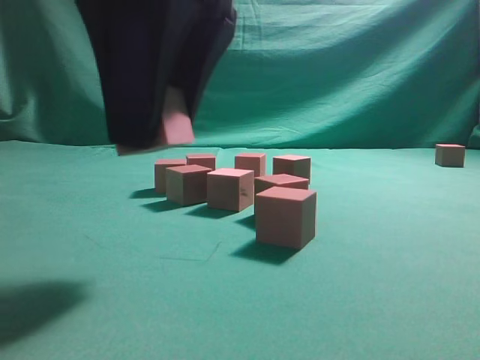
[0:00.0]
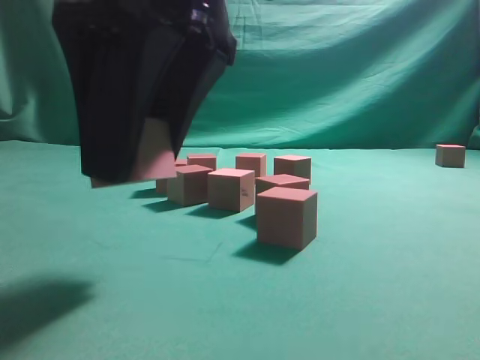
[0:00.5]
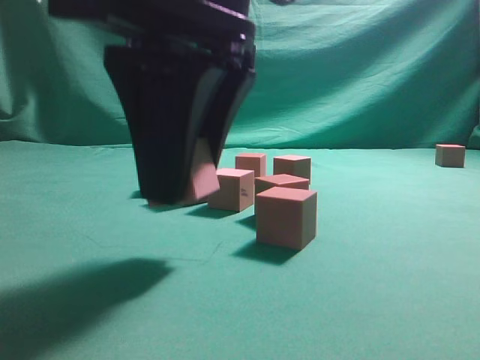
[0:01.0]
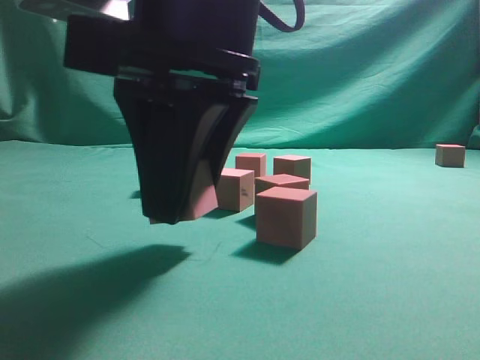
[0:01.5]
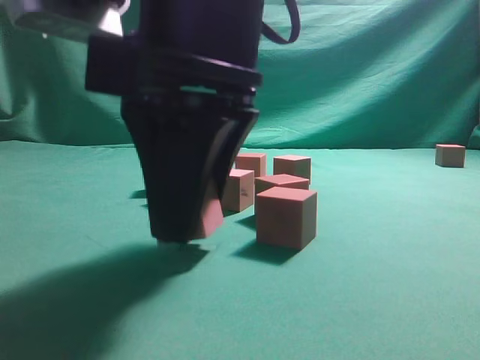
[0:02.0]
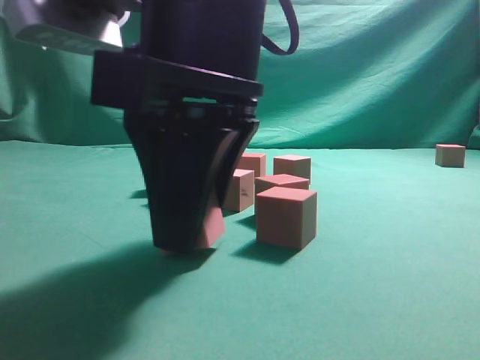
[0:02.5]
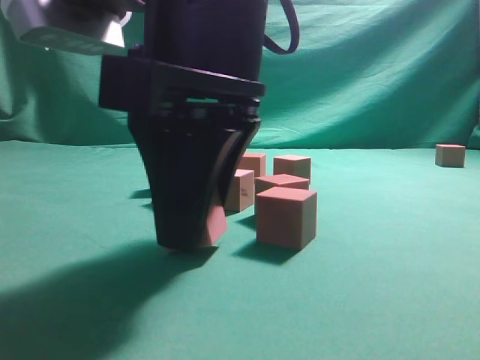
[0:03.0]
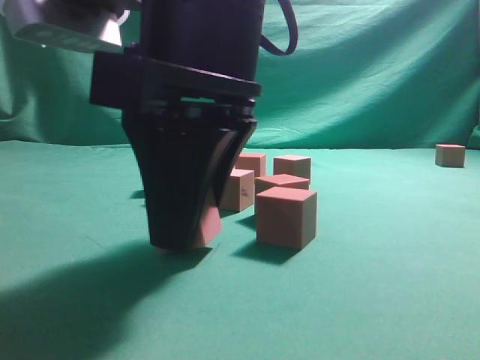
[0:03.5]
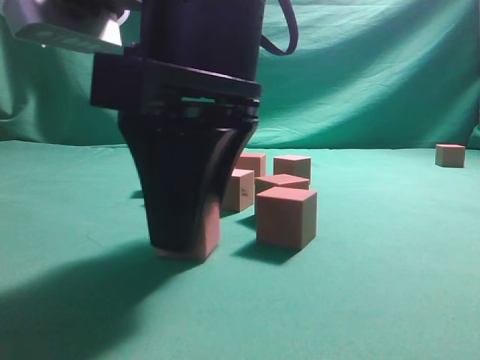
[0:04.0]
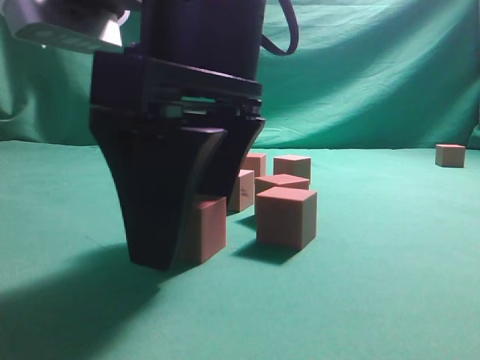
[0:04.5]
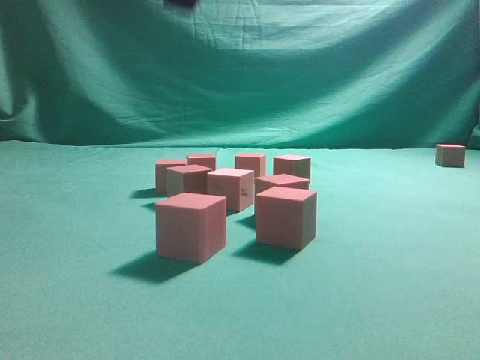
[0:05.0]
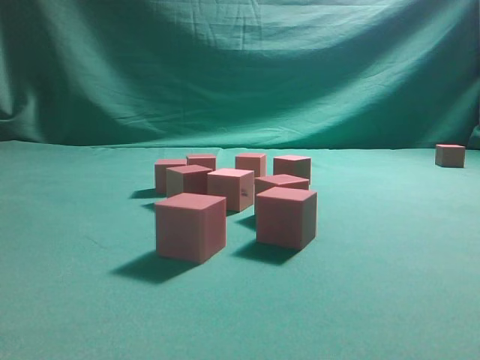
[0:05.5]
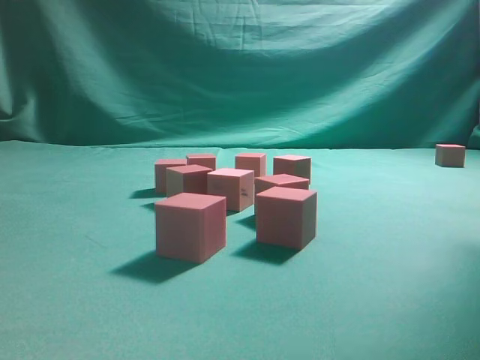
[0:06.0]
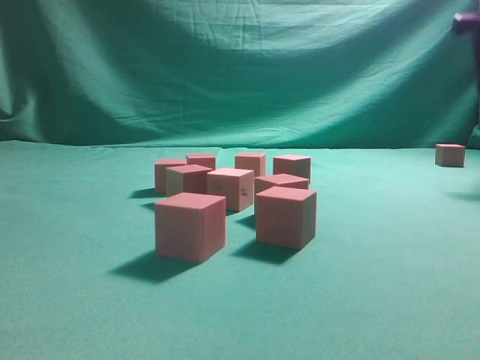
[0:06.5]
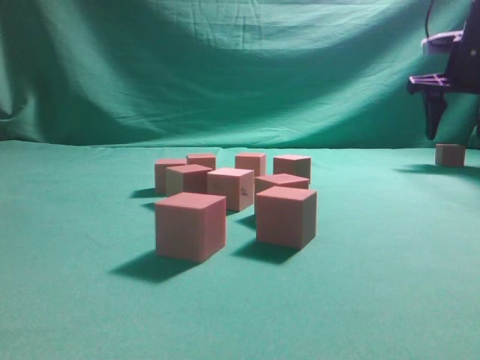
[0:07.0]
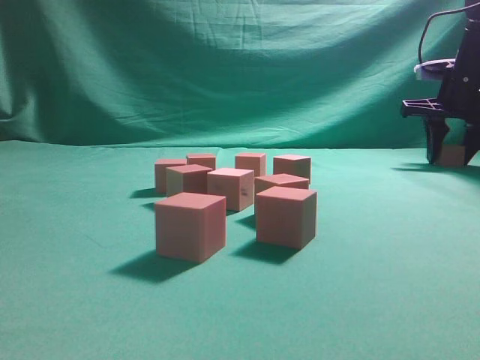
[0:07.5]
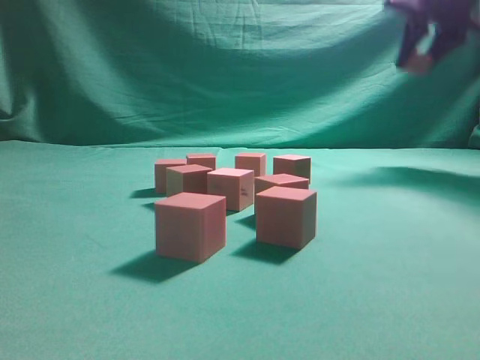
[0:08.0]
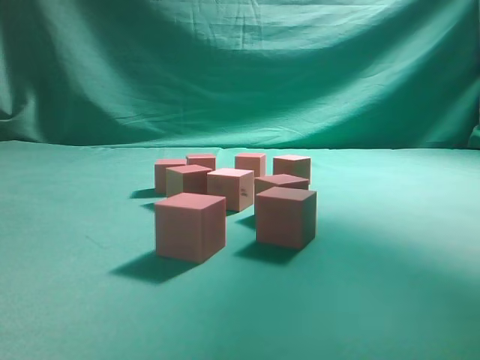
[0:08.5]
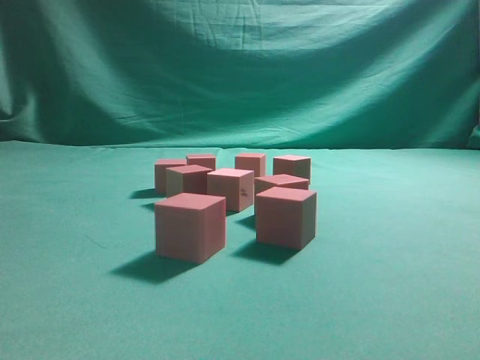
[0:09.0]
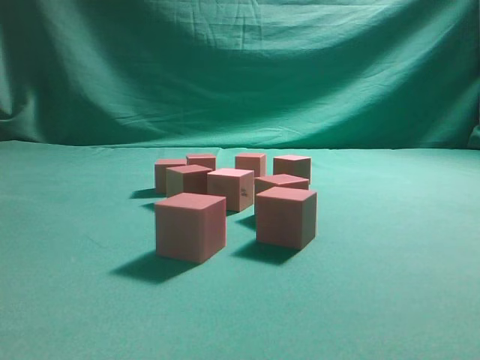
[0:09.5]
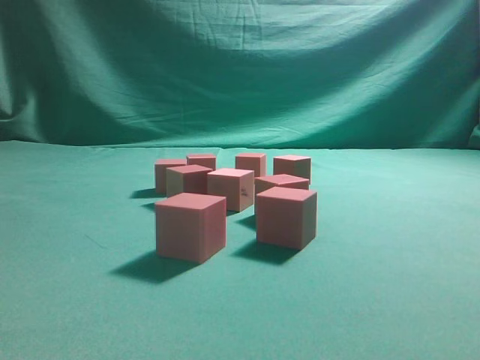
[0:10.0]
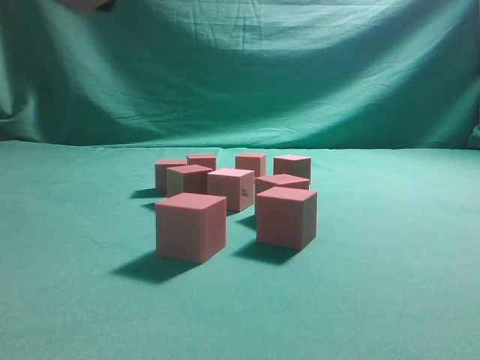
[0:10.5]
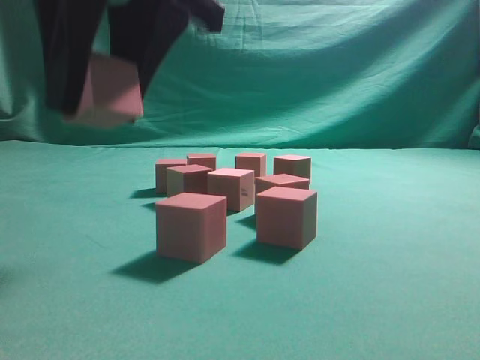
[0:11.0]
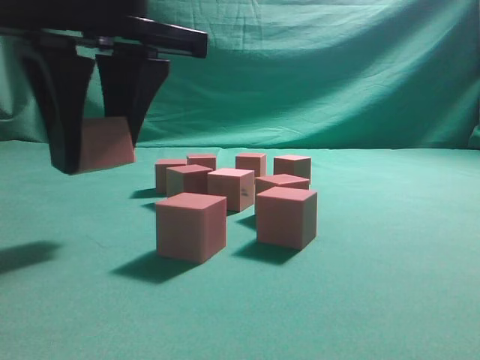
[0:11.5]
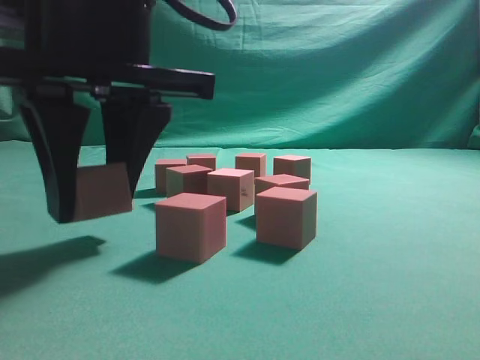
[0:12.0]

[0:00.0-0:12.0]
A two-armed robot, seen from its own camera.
Task of the whole recording: pick up the multiple cubes in two columns one by one and place them in another position on the table.
Step, 0:00.0 to 0:04.5: Place the block at the correct position to assemble the letter S.
Step, 0:05.0 to 0:08.0: Pick up the block on the table.
0:00.0 to 0:02.0: The right gripper travels downward by some 5 cm.
0:02.0 to 0:04.0: Neither gripper changes place.
0:04.0 to 0:06.0: The right gripper is displaced to the right, upward and forward by some 35 cm.
0:06.0 to 0:08.0: The right gripper goes about 15 cm forward, goes downward and returns, about 20 cm each way, and closes up.
0:08.0 to 0:10.0: The right gripper shifts about 40 cm backward and to the left.
0:10.0 to 0:12.0: The right gripper shifts roughly 20 cm downward and to the left.

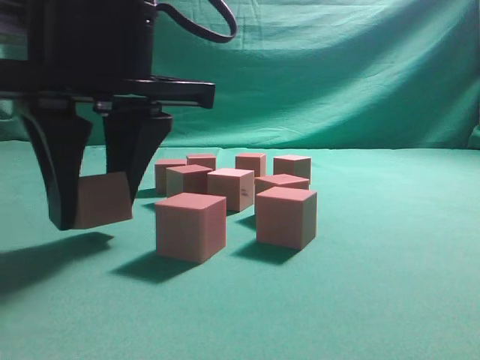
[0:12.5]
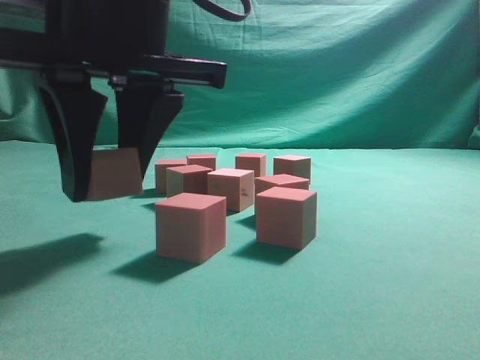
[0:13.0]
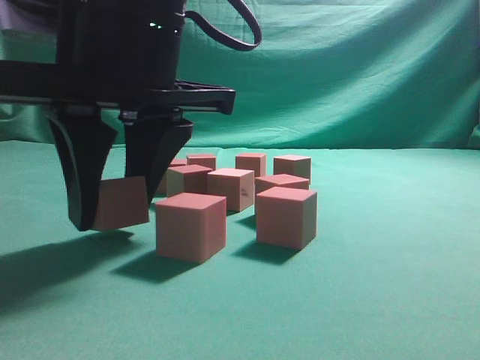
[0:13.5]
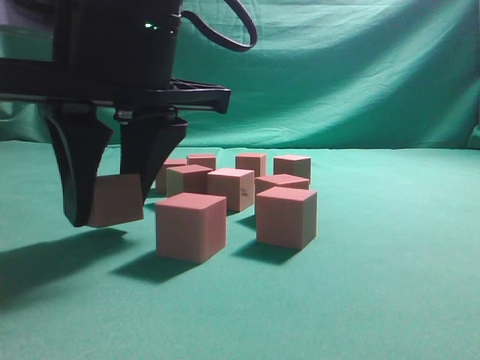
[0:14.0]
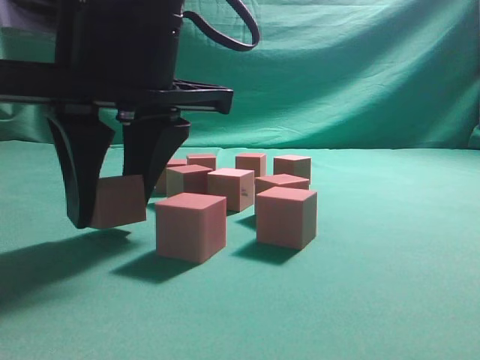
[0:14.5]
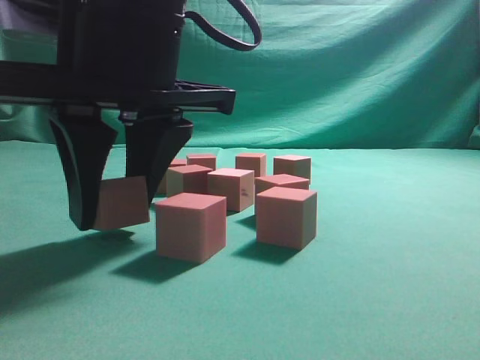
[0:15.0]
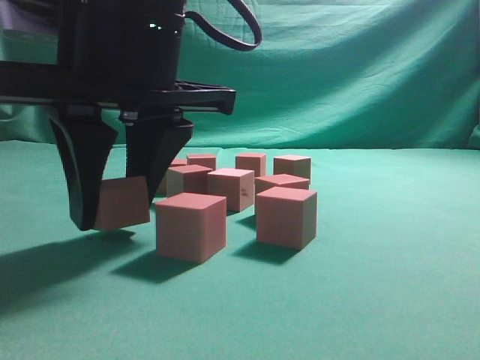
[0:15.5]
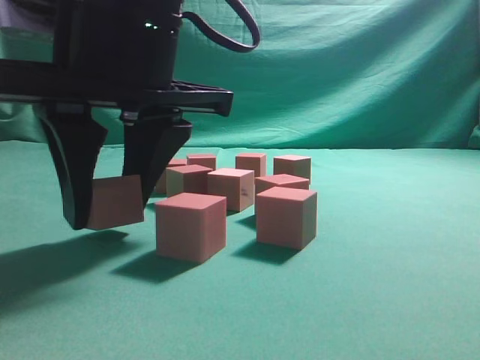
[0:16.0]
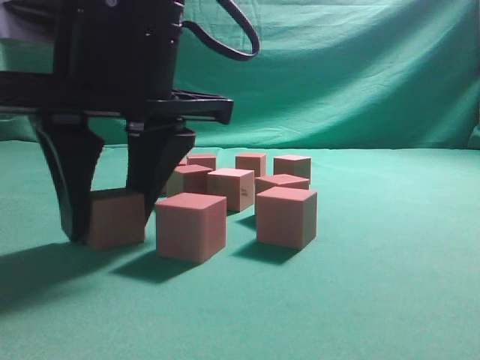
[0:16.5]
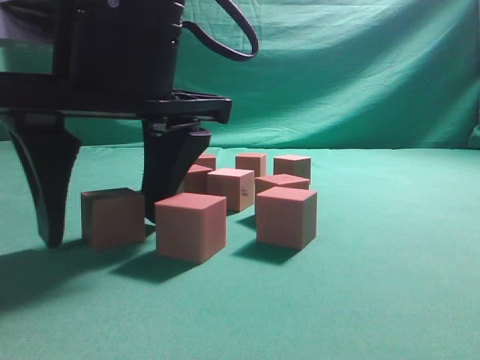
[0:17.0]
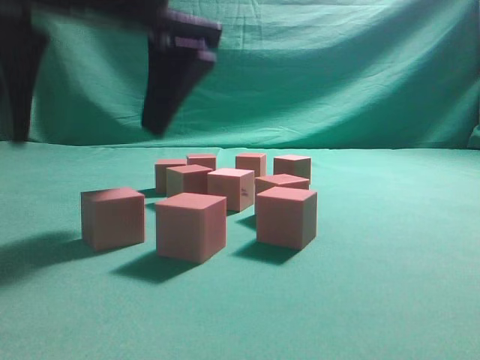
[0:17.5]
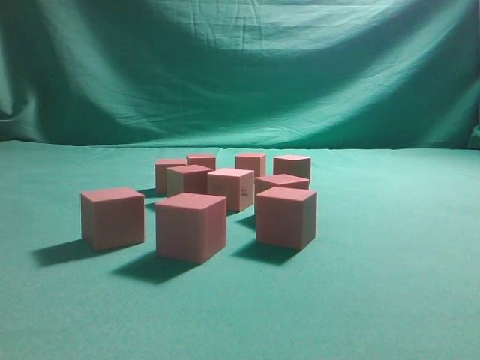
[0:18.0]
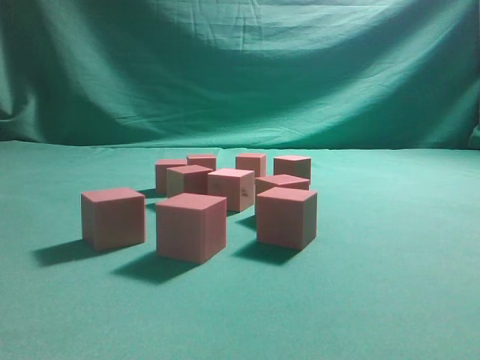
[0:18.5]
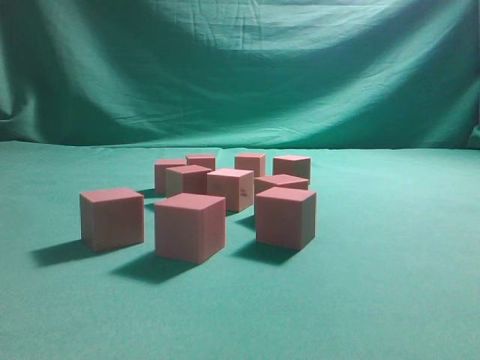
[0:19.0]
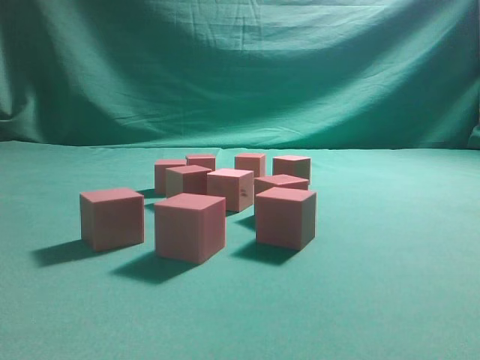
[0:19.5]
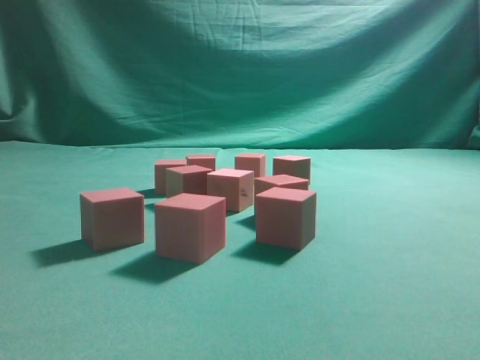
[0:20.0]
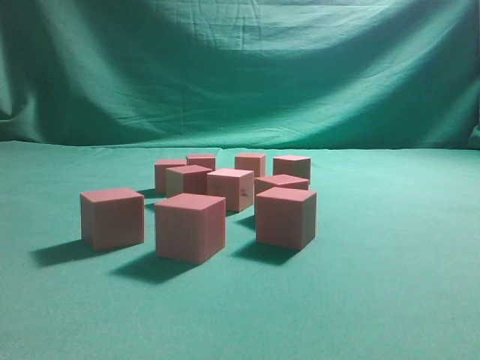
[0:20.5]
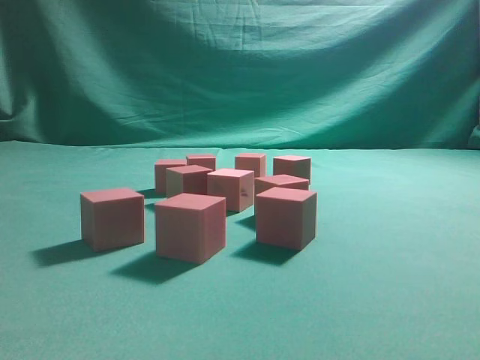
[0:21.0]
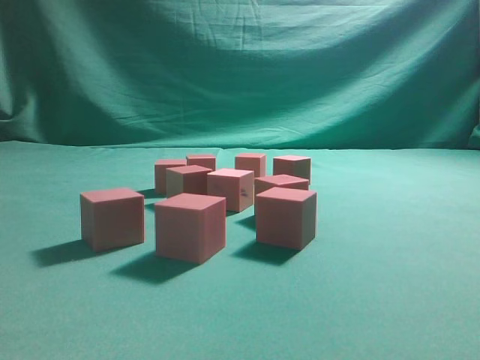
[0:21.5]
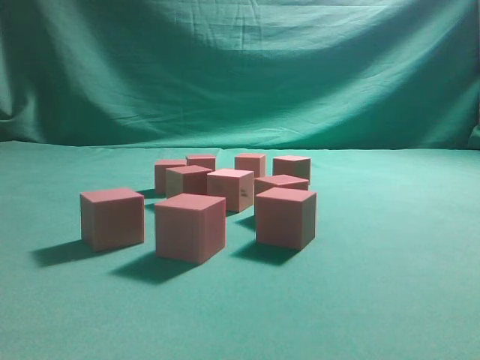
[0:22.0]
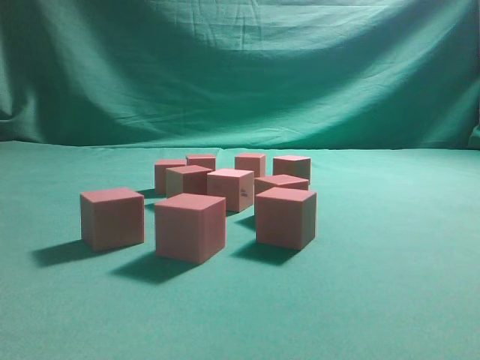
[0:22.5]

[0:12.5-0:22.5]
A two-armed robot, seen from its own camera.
Task of the whole recording: pick up the multiple cubes in two columns one by one and place them in another position on the table.
Step, 0:12.5 to 0:17.5: Place the block at the correct position to assemble the letter S.
0:12.5 to 0:14.5: The grippers make only small movements.
0:14.5 to 0:16.5: Both grippers stay put.
0:16.5 to 0:18.5: The right gripper shifts roughly 35 cm upward, and closes its fingers.
